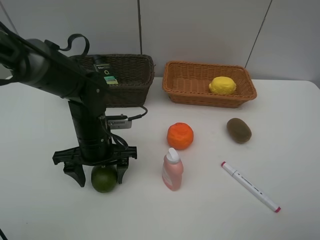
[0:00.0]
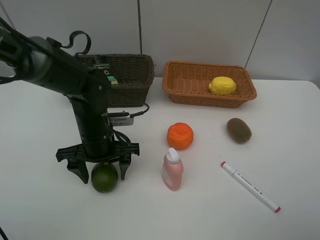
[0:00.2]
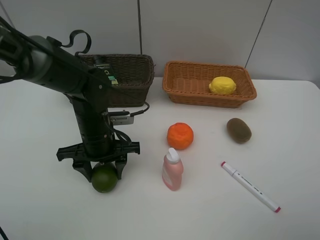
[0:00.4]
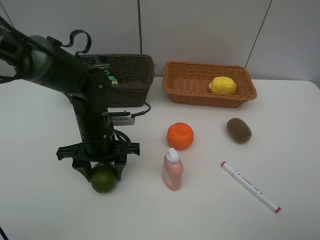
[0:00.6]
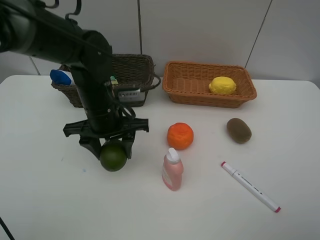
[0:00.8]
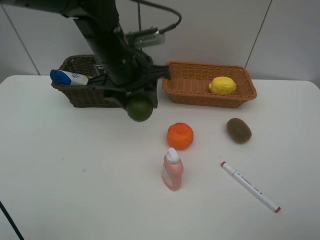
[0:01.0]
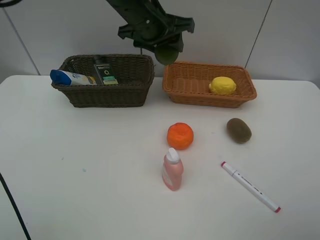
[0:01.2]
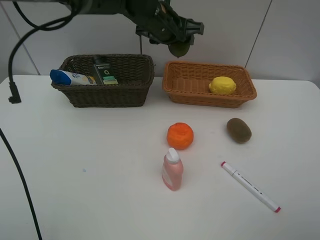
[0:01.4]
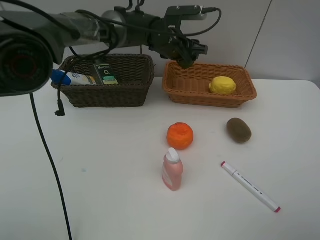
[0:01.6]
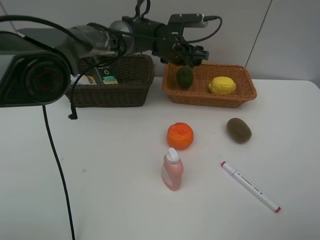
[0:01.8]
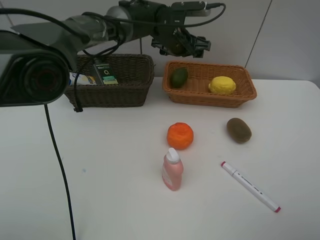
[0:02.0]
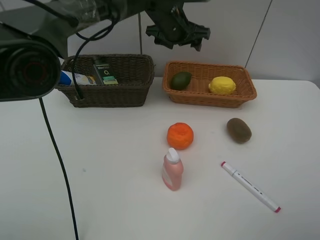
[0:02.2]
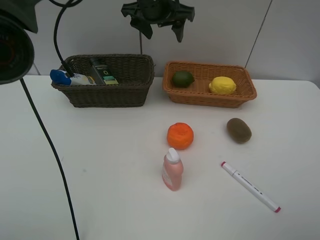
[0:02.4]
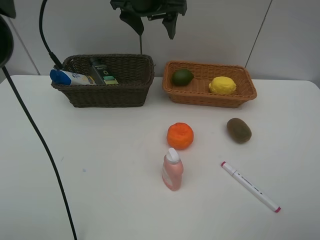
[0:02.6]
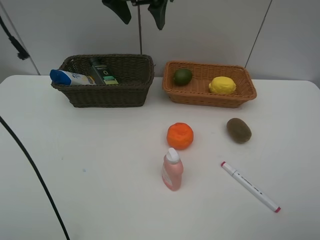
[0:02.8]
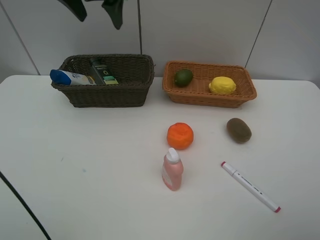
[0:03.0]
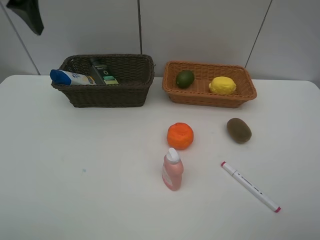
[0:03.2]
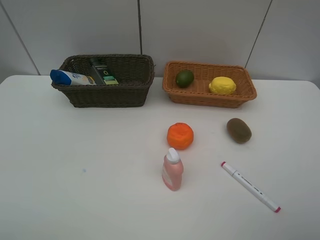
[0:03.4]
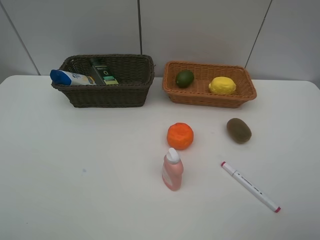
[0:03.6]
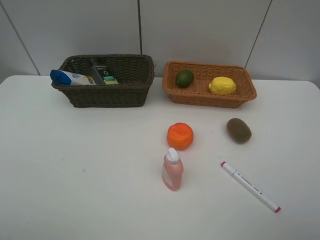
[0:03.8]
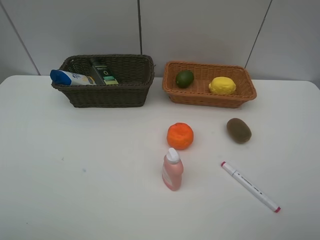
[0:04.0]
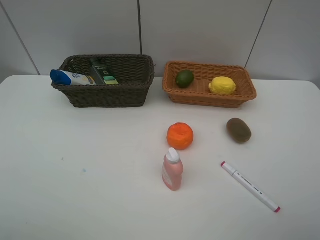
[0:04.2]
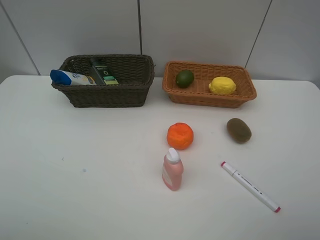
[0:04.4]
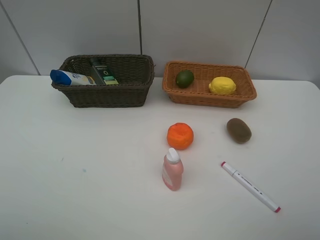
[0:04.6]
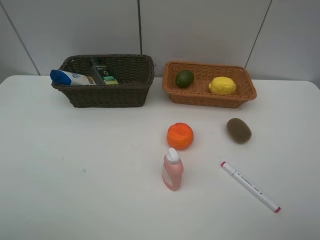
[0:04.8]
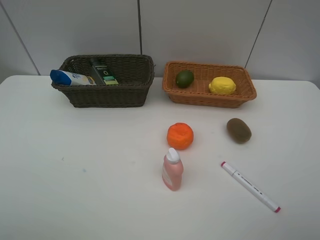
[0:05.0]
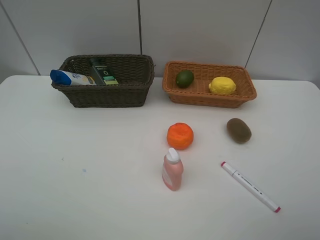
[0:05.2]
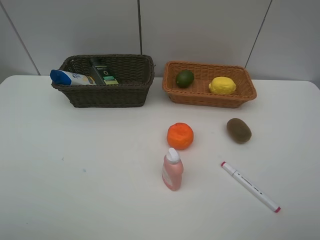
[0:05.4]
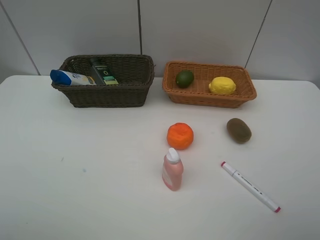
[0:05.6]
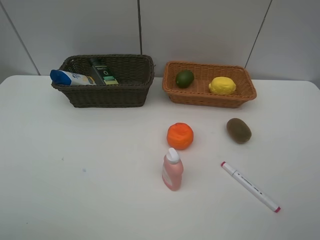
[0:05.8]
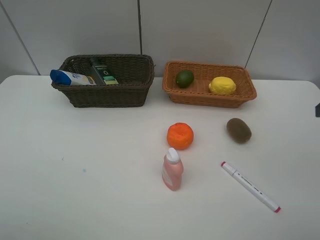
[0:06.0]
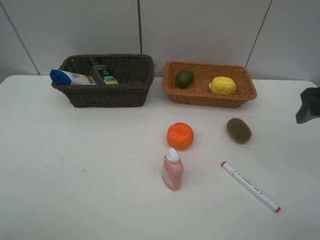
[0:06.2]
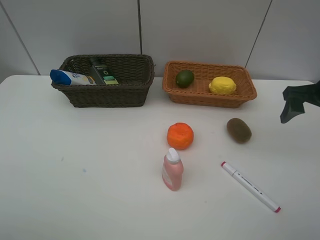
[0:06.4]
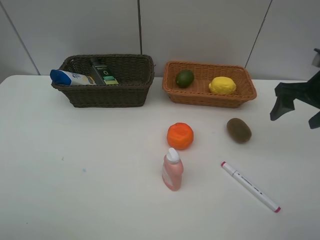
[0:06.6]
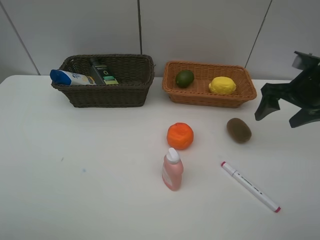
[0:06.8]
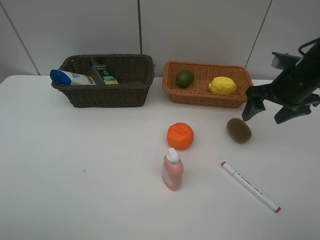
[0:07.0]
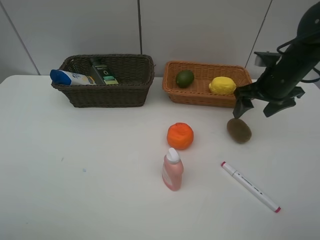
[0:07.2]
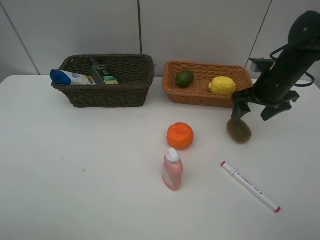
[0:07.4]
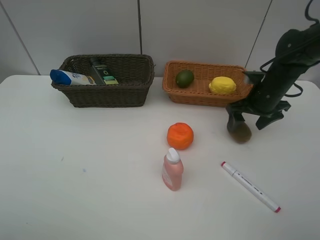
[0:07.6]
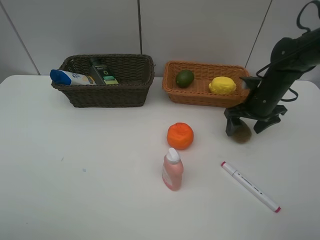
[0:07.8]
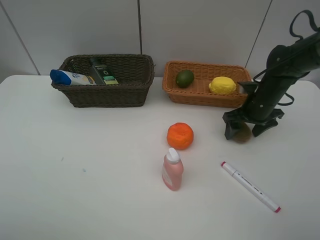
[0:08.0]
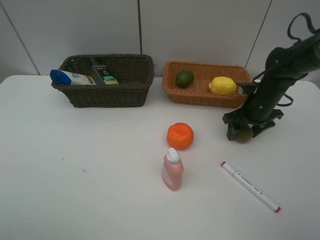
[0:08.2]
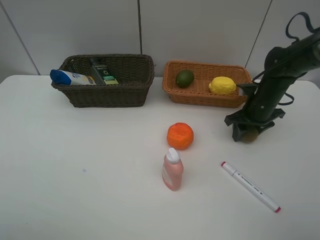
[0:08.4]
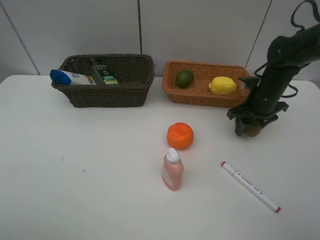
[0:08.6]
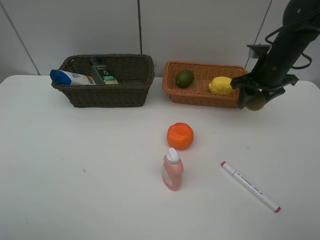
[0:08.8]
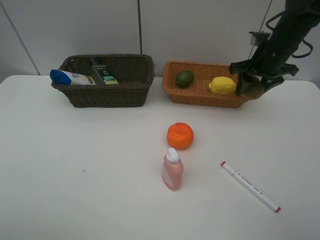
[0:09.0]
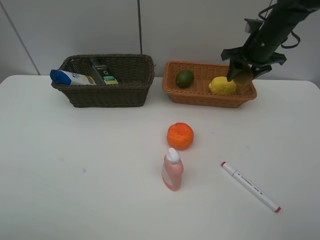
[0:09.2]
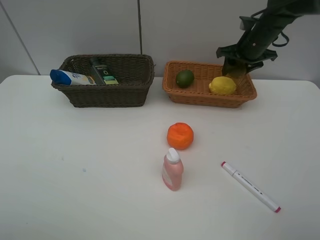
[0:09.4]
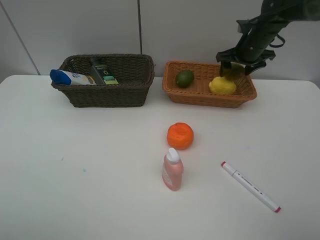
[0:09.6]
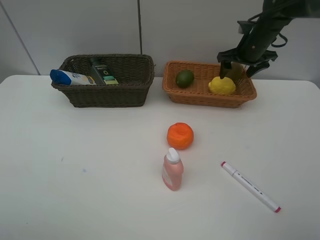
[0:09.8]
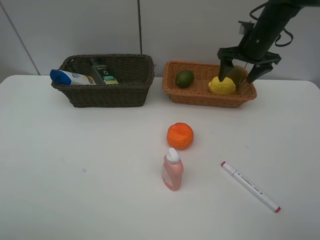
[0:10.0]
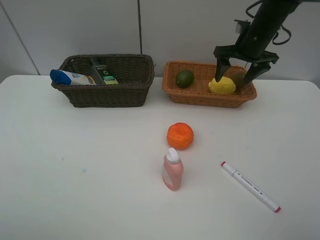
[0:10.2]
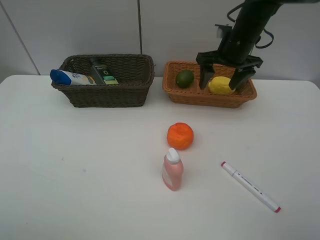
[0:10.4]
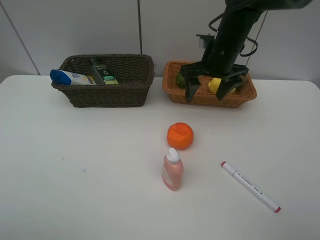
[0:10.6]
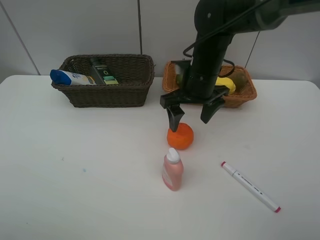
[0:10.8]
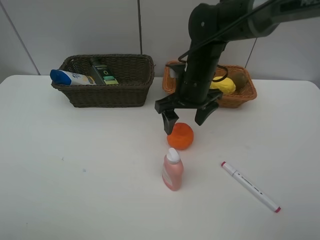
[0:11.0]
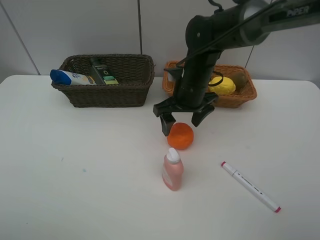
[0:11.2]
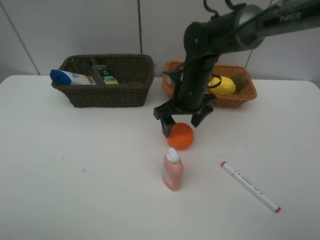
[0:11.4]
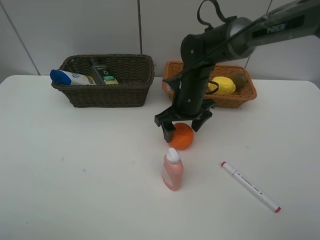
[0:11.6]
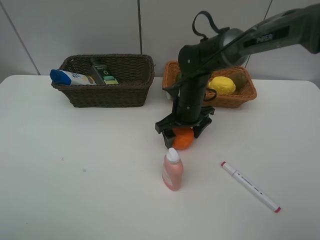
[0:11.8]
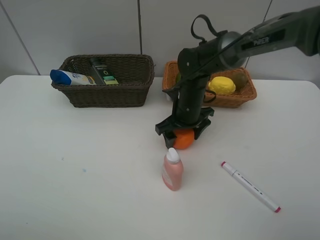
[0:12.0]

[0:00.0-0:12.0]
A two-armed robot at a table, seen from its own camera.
Task of the whole recording: Place multiple objects separately in different baskets.
Step, 0.8 to 1.8 s: Place the lime in the light basket with left gripper.
Step, 2.0 to 8.6 s: Pick up kiwi with right gripper.
Step, 8.8 to 9.8 s: Place the kiwi in the light basket with right gripper.
0.0 to 1.6 s: The left gripper is displaced forward and to the right by some 25 cm, and closes up.
1.6 to 3.0 s: The left gripper moves upward, to the left and backward, approximately 25 cm, and opens up.
3.0 to 4.4 s: The left gripper goes some 40 cm backward and to the left.
6.0 to 7.6 s: The right gripper goes approximately 25 cm forward, downward and to the left.
7.6 to 9.0 s: The right gripper shifts approximately 10 cm upward, and closes its fingers.
9.0 to 10.4 s: The right gripper moves to the left, some 10 cm, and opens up.
10.4 to 12.0 s: The right gripper moves downward, to the left and backward, about 15 cm.

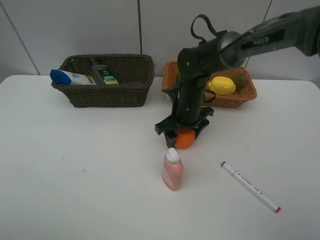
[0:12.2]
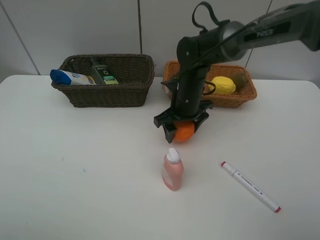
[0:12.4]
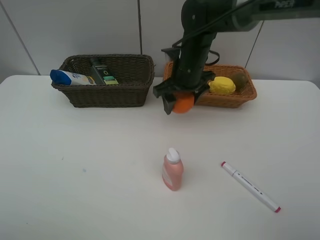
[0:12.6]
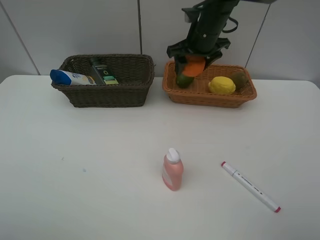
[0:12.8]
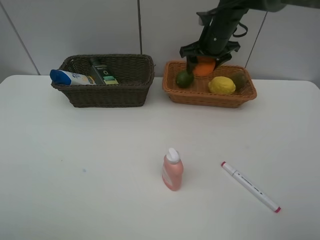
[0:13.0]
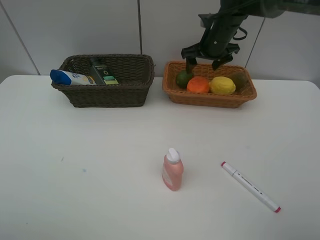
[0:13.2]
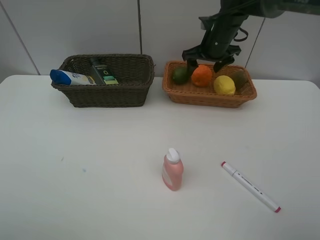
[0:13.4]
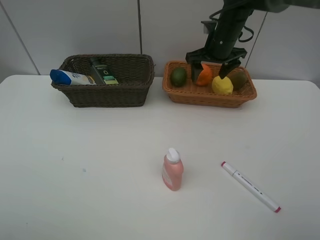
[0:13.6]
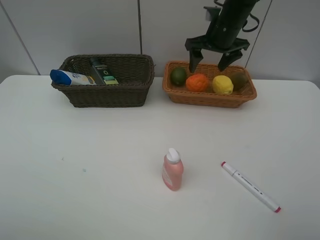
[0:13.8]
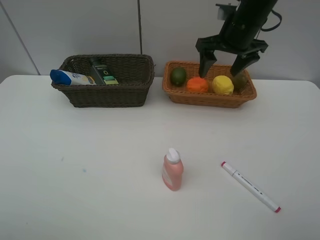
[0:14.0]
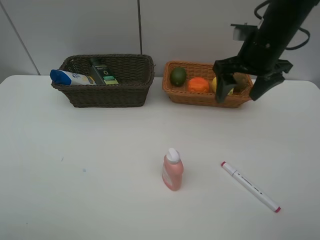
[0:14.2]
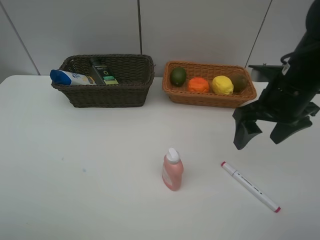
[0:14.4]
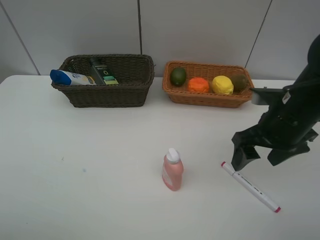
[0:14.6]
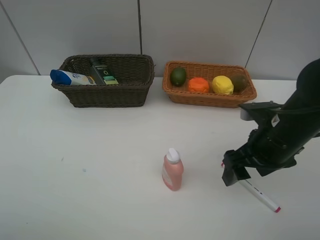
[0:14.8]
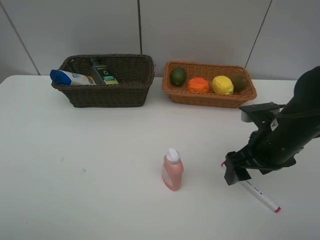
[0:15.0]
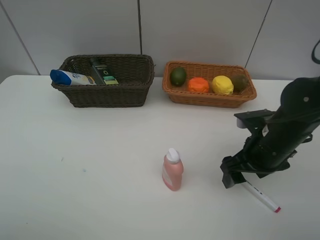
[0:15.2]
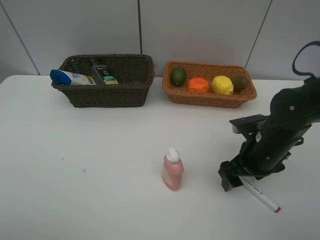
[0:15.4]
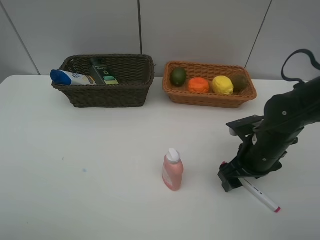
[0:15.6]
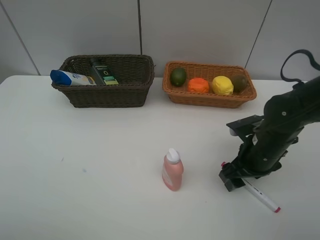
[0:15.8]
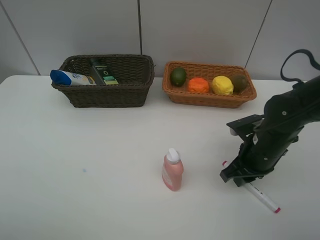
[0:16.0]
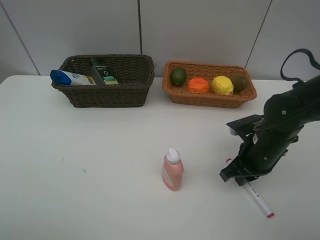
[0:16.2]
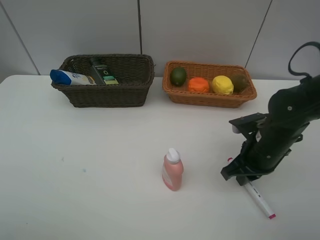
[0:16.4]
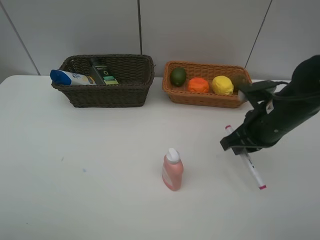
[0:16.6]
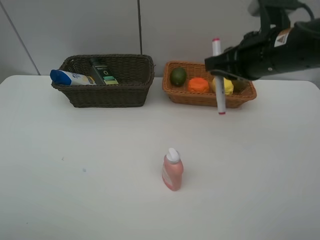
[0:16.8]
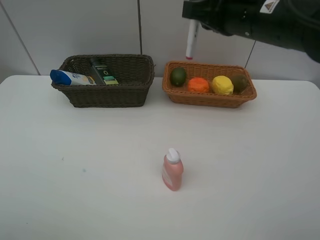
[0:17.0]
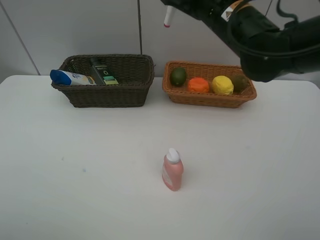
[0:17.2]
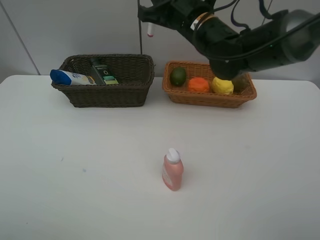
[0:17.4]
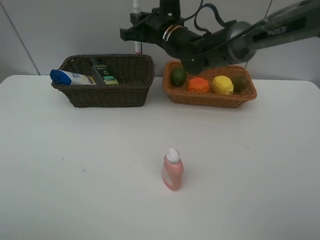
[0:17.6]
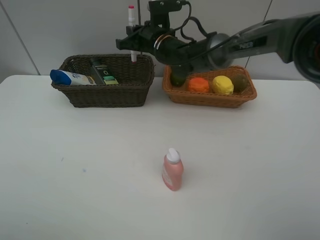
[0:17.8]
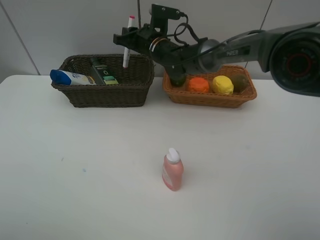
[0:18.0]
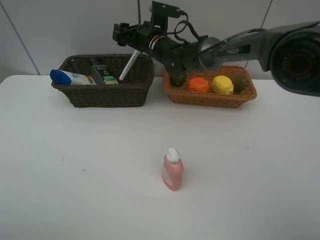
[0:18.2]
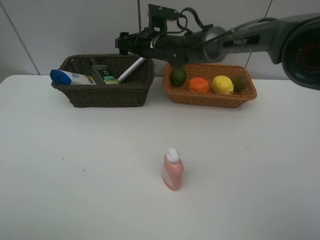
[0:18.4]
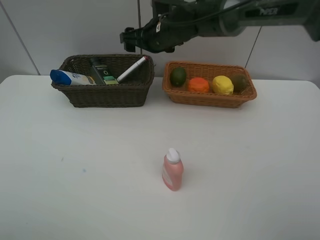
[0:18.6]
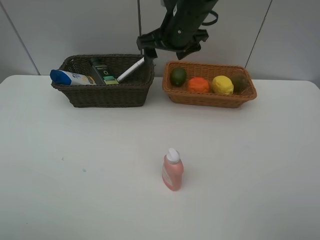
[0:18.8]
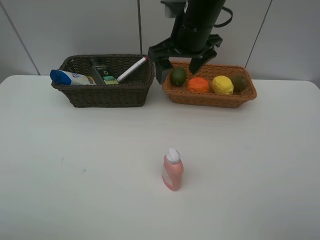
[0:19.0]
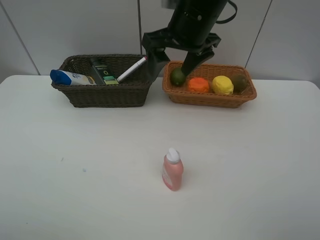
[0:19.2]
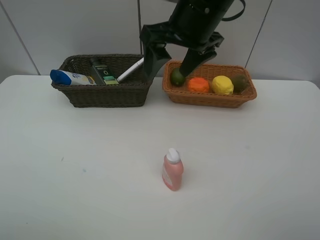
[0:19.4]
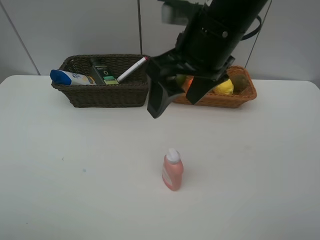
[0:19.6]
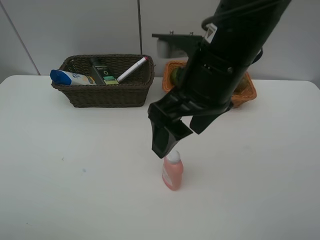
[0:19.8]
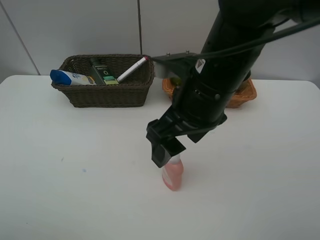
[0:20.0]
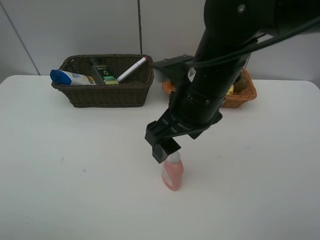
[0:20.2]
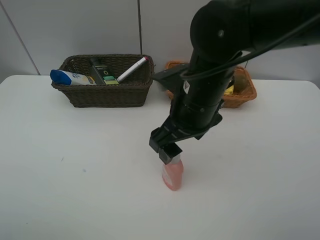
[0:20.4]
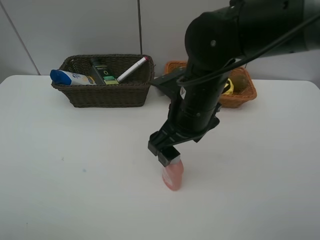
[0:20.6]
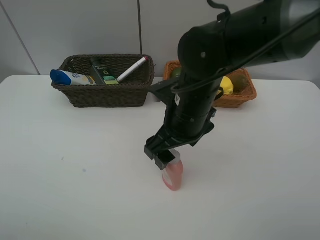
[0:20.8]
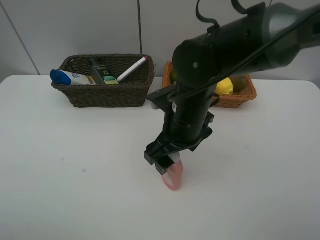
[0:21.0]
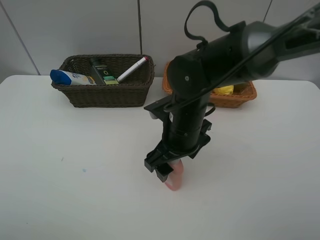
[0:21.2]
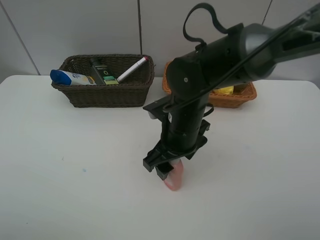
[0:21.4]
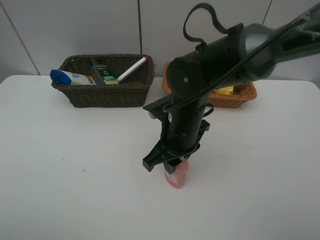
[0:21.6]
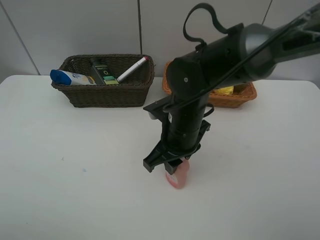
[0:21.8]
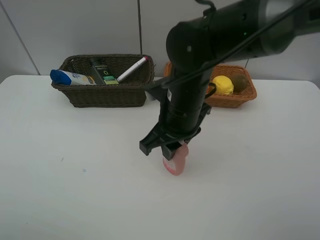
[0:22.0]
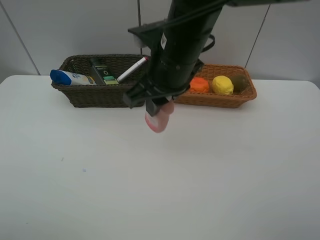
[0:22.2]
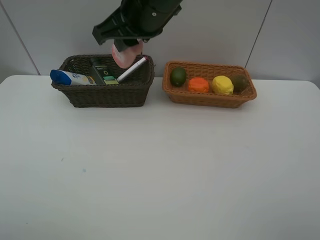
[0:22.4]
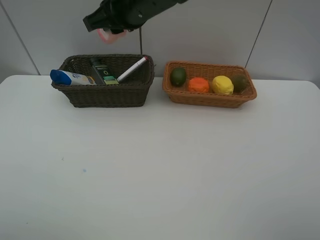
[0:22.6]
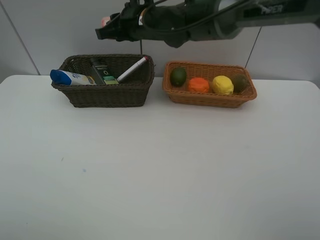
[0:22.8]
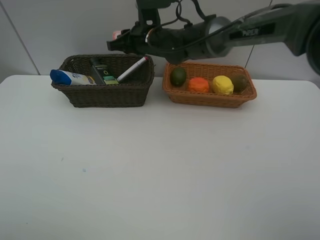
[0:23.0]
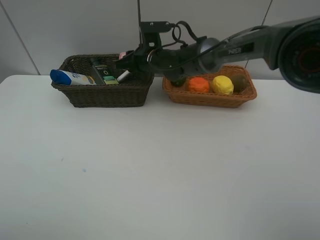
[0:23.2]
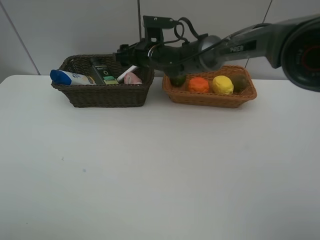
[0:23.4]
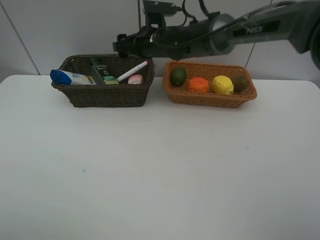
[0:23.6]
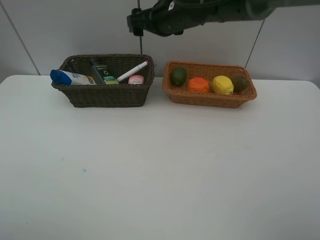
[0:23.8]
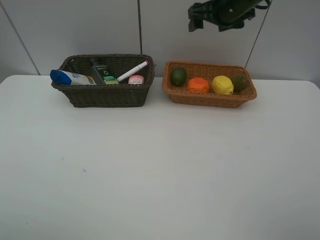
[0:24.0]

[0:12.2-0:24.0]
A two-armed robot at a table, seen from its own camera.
Task of the whole recording: Place multiple objects separately in different baskets.
Step, 12.6 to 13.4 s: Place the orange in the light basket with right gripper.
Step, 13.6 to 16.4 s: Pick up the red marker with right gripper.
Step, 16.6 to 18.4 s: Place the red marker in the dark basket with right gripper.
Step, 18.6 to 21.8 s: Pick up the laundry detergent with right gripper.
Step, 22.0 to 23.4 s: Place the laundry detergent in the dark basket with right gripper.
12.2 to 13.6 s: The right gripper moves upward, forward and to the right, about 20 cm.
13.6 to 15.2 s: The right gripper travels backward by approximately 25 cm.
15.2 to 16.6 s: The right gripper is displaced upward by about 5 cm, and closes.
16.6 to 18.2 s: The right gripper travels to the left and forward by approximately 30 cm, and opens up.
18.2 to 19.6 s: The right gripper shifts some 25 cm backward and upward.
19.6 to 21.0 s: The right gripper shifts roughly 15 cm downward.
21.0 to 22.6 s: The right gripper goes roughly 20 cm upward, forward and to the left, and closes.
22.6 to 24.0 s: The right gripper goes approximately 25 cm to the right and forward, and opens up.
